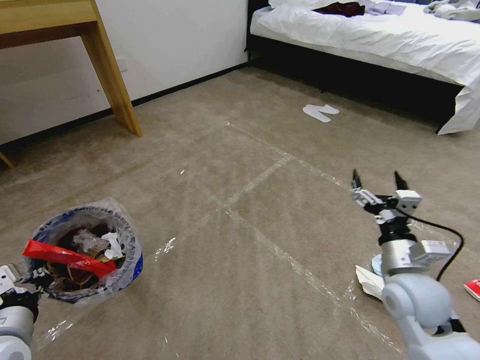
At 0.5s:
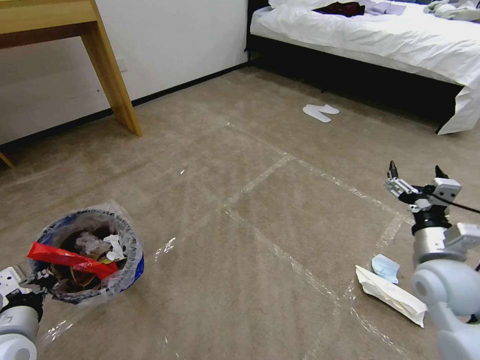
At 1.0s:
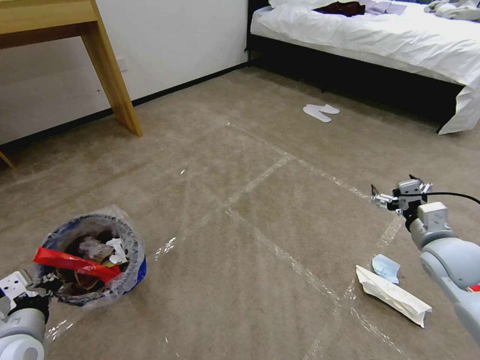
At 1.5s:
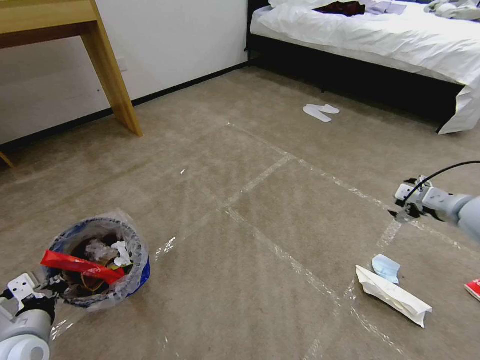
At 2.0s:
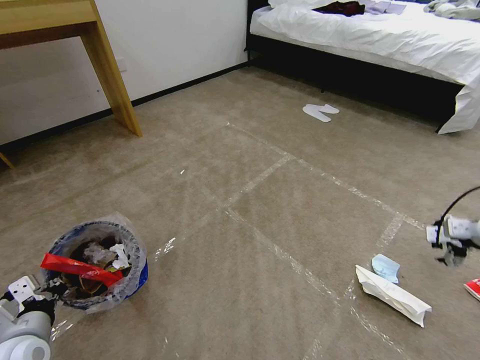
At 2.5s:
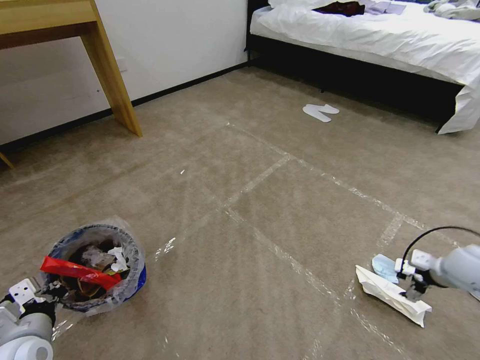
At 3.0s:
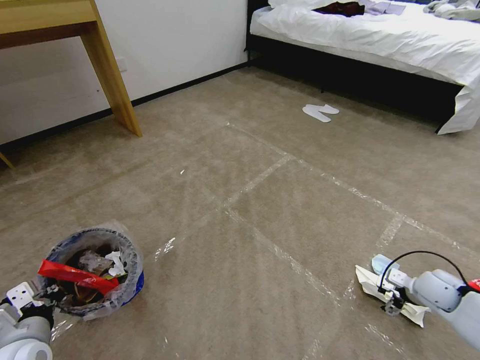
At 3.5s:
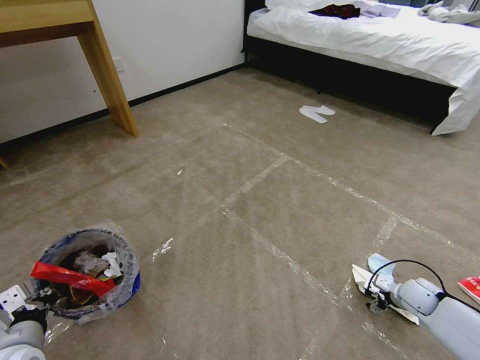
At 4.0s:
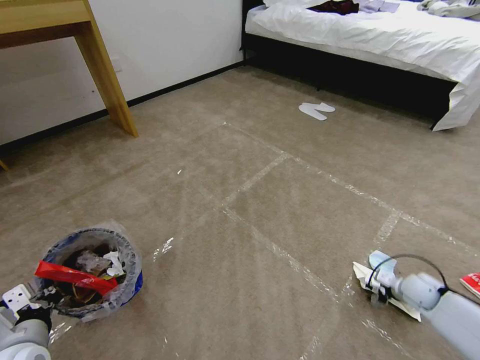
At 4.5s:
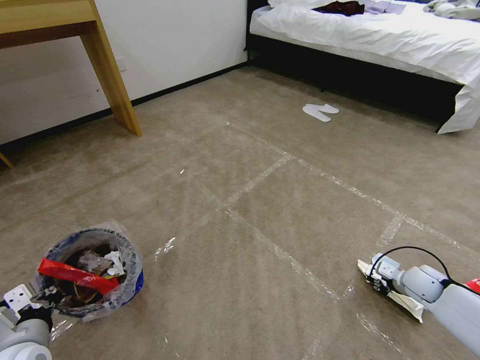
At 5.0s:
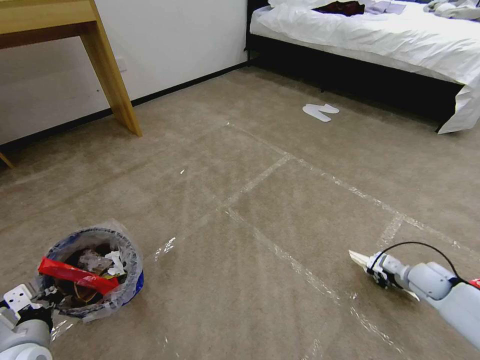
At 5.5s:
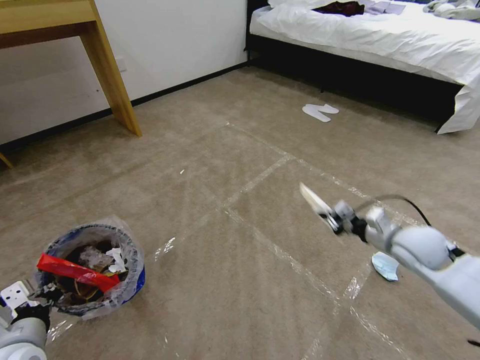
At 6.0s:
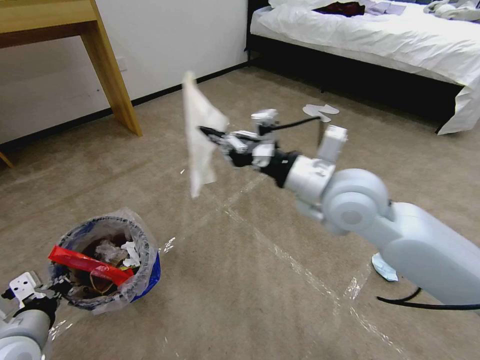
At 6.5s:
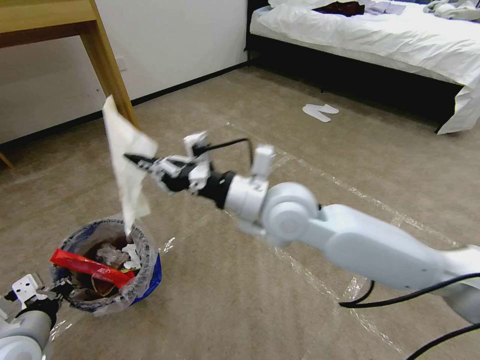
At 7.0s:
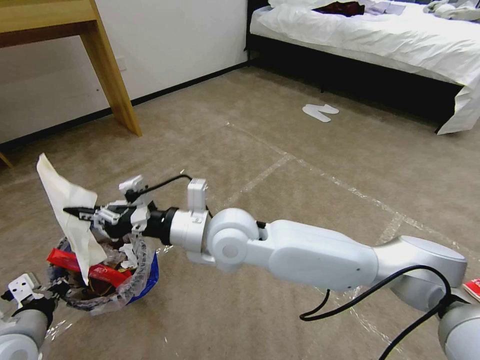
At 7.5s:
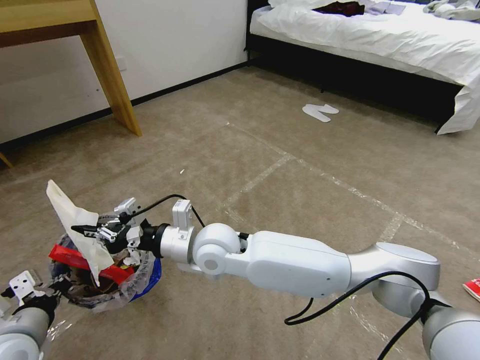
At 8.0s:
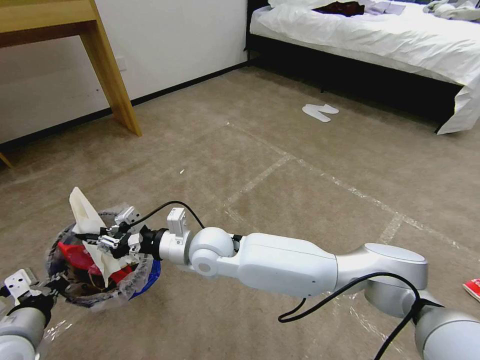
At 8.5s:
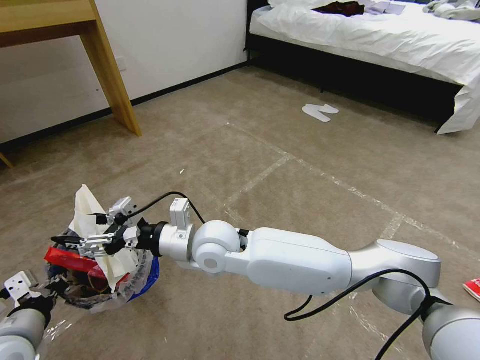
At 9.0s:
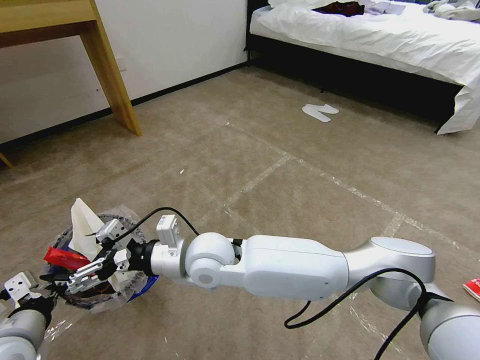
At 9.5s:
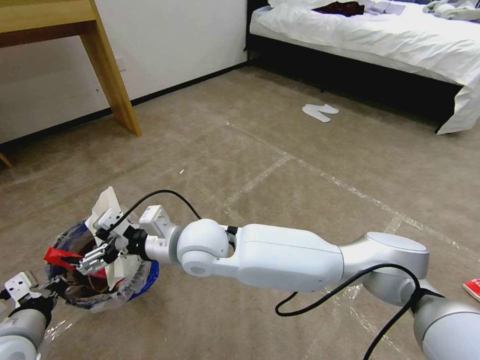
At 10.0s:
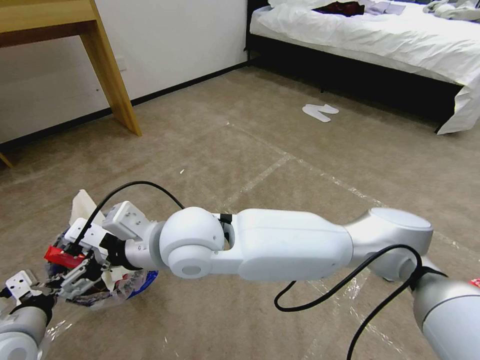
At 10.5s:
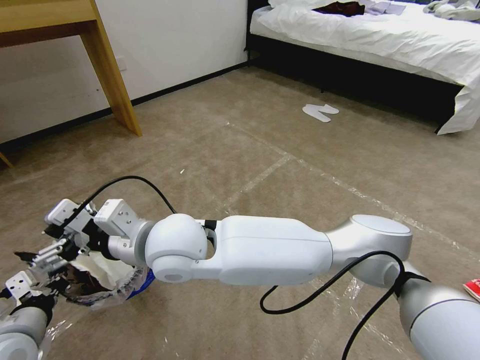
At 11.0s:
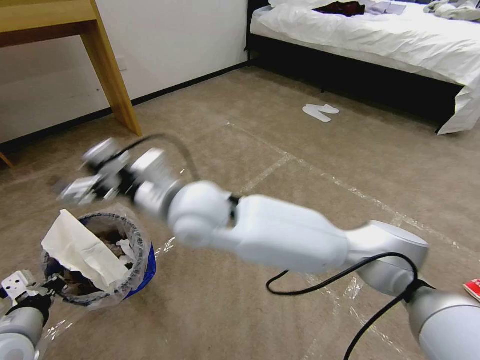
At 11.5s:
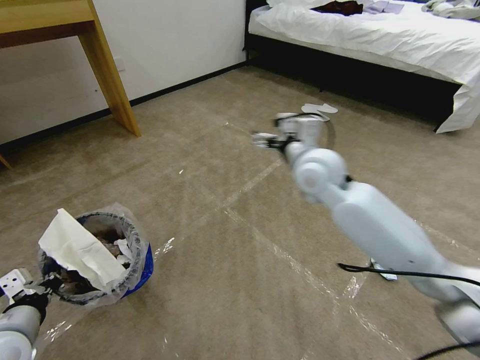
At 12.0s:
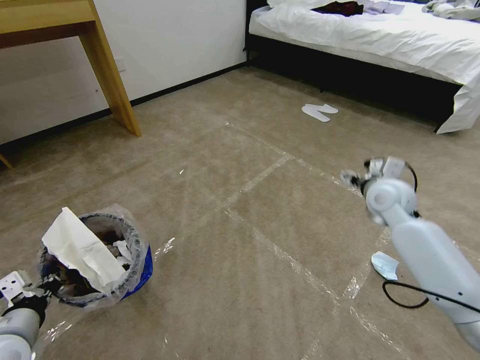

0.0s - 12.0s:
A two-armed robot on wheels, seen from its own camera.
Task of the whole recording: Pick up the trash bin and place the garbage on the floor into it.
0.0s - 2.0s: The right gripper goes approximately 25 cm to the right and forward. The left gripper heads downward, covering some 5 cm.
2.0s - 4.0s: The right gripper travels downward by roughly 25 cm.
4.0s - 6.0s: The left gripper is displaced upward by approximately 5 cm. The right gripper travels upward and to the left by some 50 cm, and closes its fingers.
6.0s - 8.0s: The right gripper is displaced to the left and downward by some 30 cm.
8.0s - 10.0s: The right gripper goes about 15 cm upward and backward, and opens its fingers.
10.0s - 12.0s: The right gripper shifts approximately 40 cm to the right.

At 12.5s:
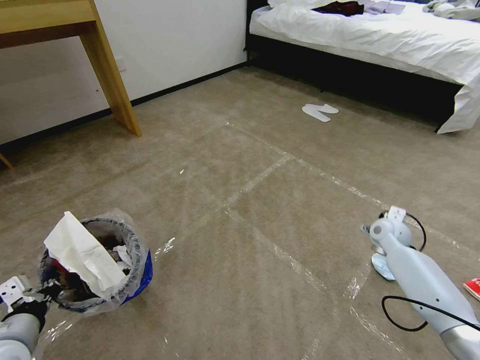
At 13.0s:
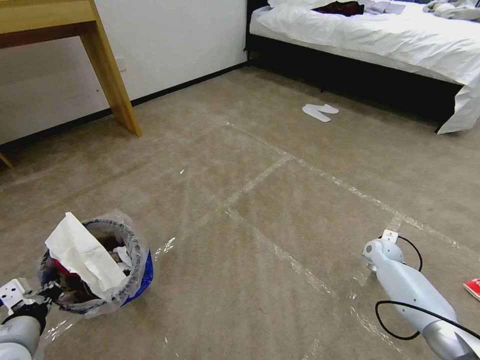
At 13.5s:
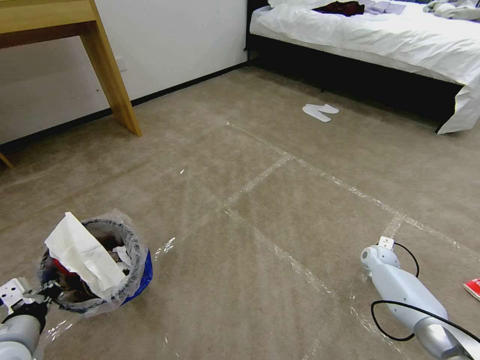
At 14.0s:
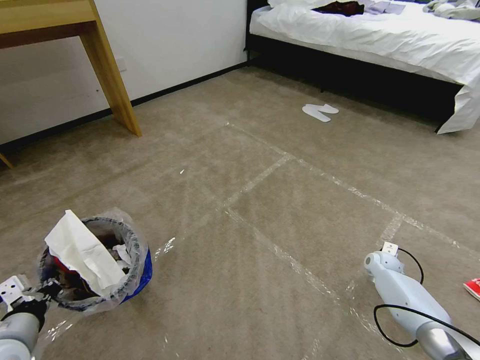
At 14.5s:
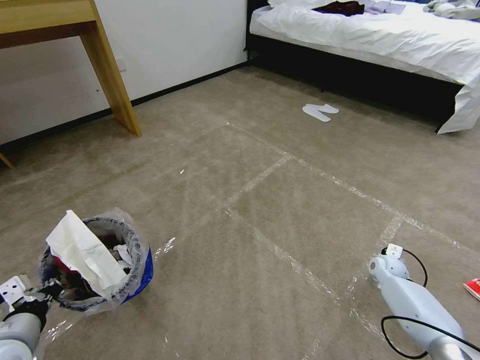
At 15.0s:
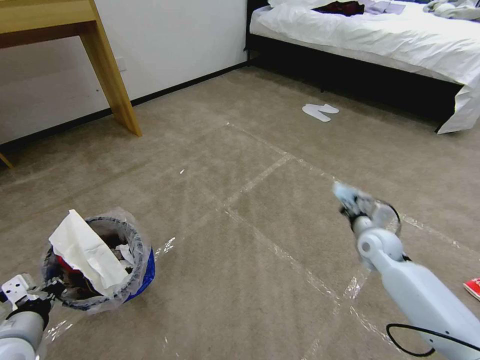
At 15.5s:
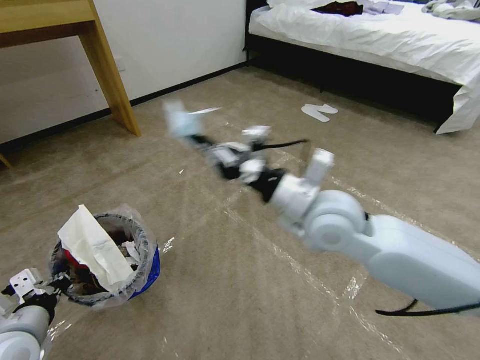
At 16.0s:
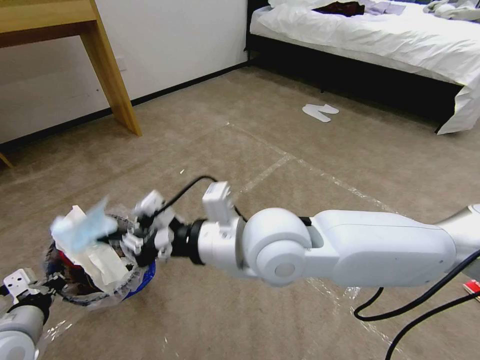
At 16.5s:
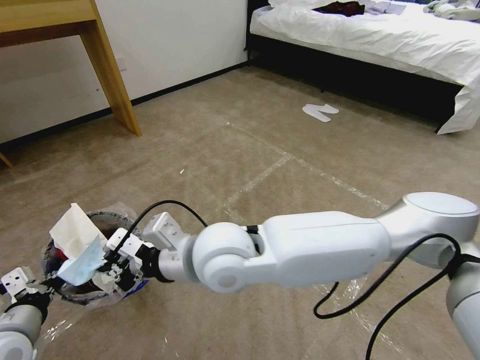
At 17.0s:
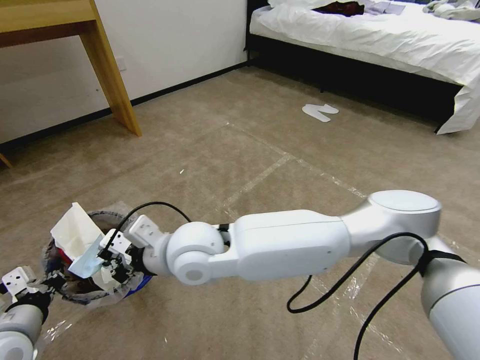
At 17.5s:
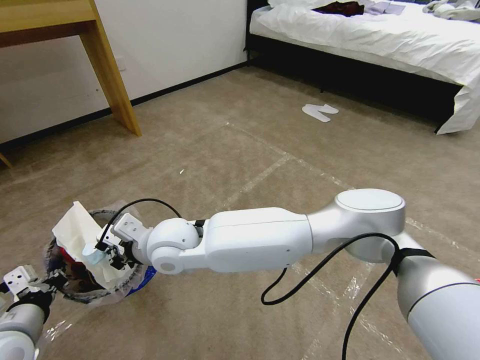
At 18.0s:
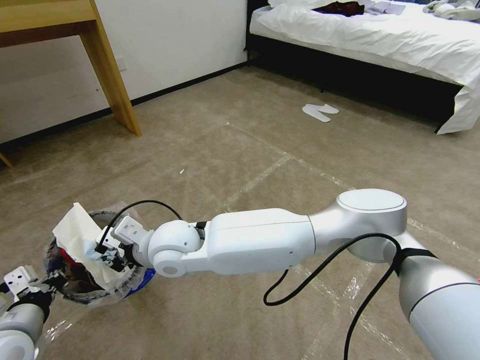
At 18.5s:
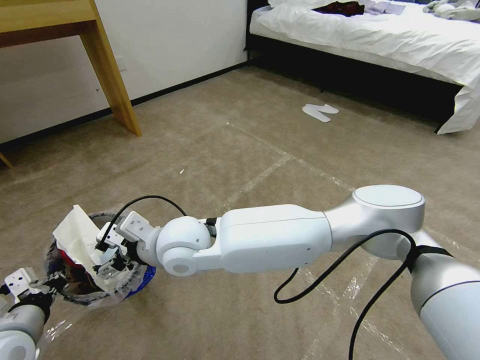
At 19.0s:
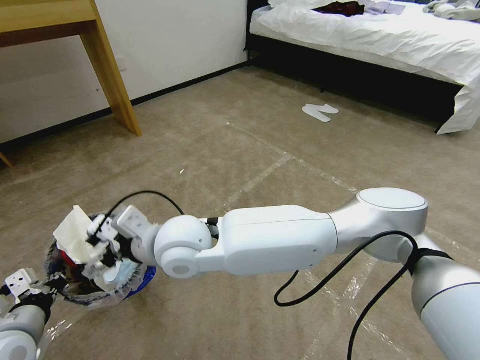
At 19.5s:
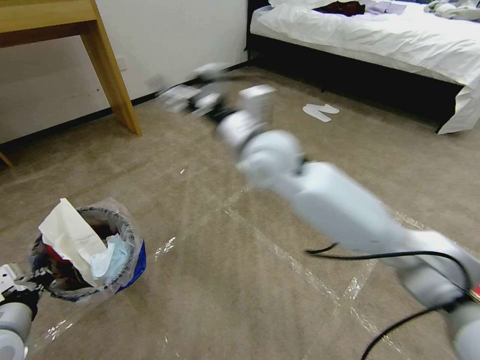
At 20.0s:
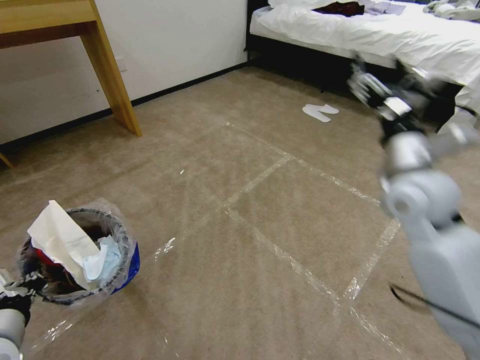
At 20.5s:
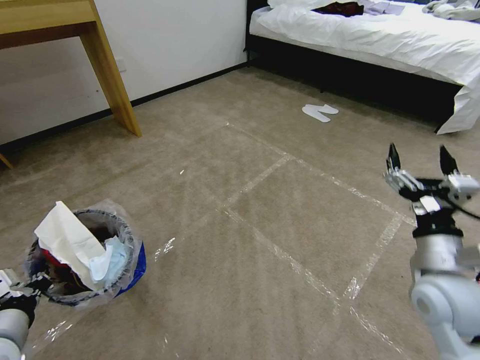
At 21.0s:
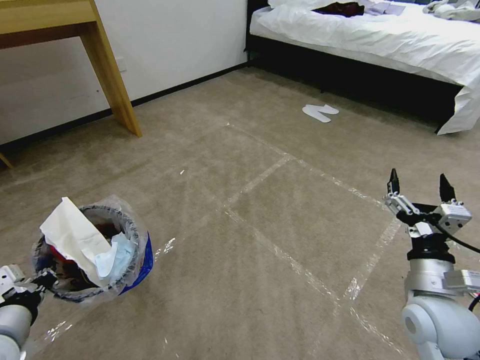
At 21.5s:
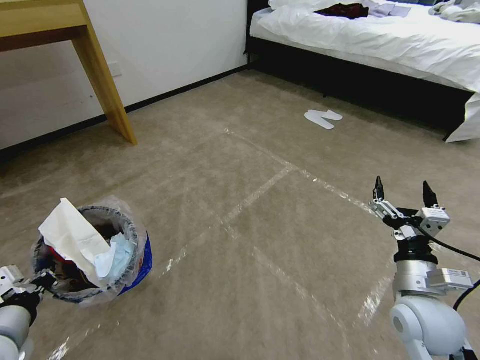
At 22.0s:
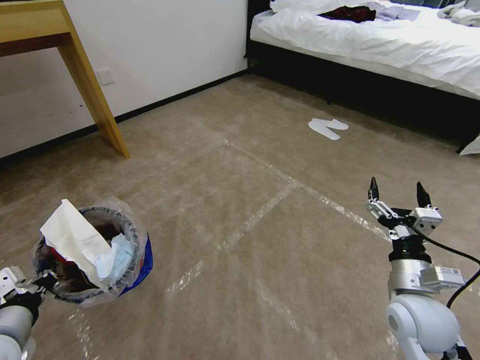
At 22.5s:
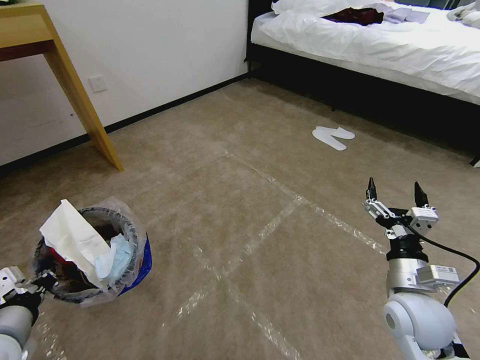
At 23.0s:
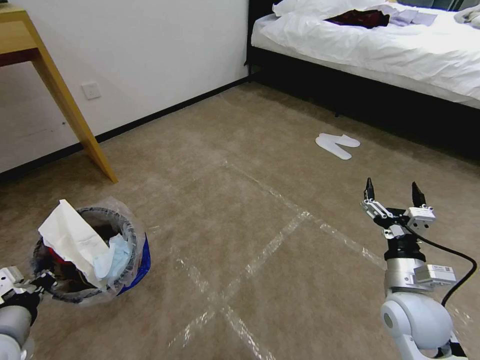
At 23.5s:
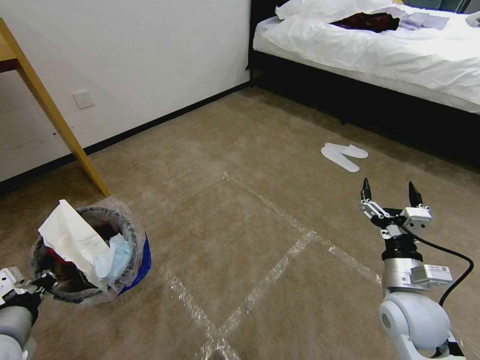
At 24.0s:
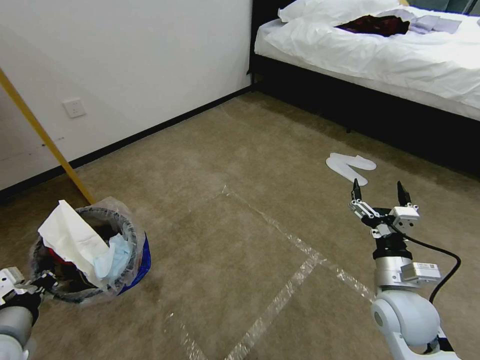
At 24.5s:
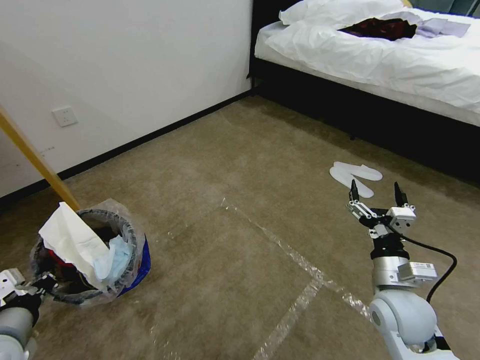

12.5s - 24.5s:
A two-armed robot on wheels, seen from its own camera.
Task of the whole recording: Pick up the trash bin and place the garbage on the floor into it.
12.5s - 14.5s: The right gripper heads downward, covering approximately 10 cm, and closes its fingers.
14.5s - 16.5s: The right gripper travels to the left and upward by some 60 cm.
16.5s - 18.5s: The right gripper shifts approximately 10 cm to the left, and opens up.
18.5s - 20.5s: The right gripper shifts about 40 cm to the right.
20.5s - 22.5s: The right gripper goes some 5 cm downward.

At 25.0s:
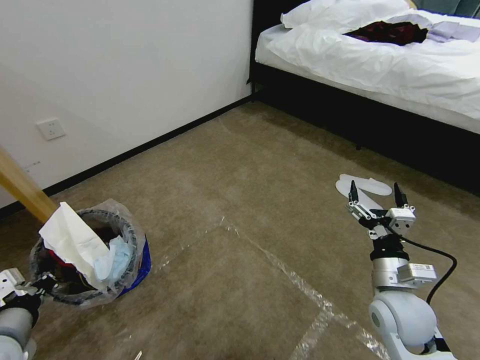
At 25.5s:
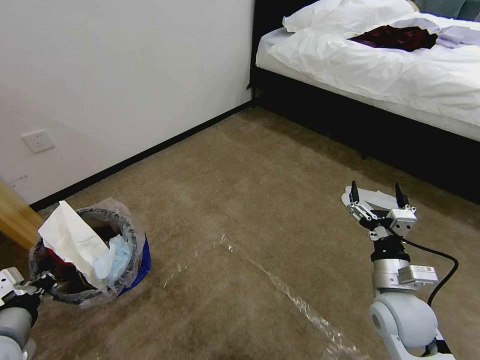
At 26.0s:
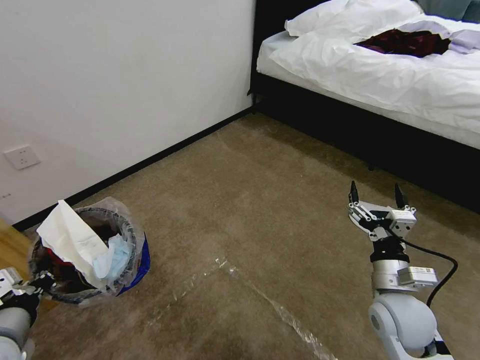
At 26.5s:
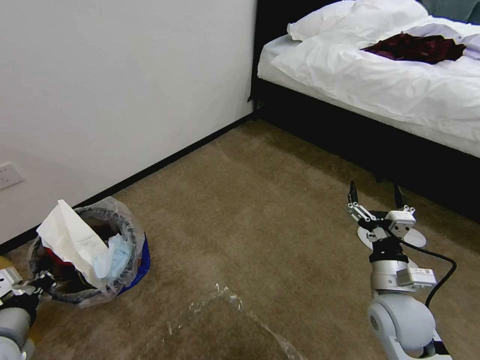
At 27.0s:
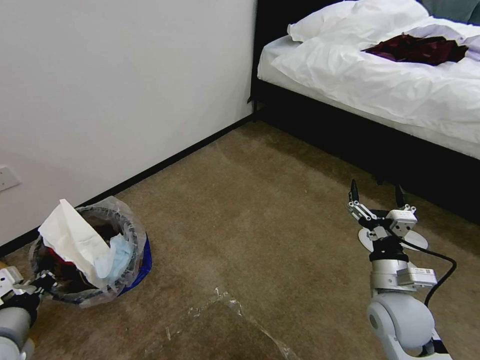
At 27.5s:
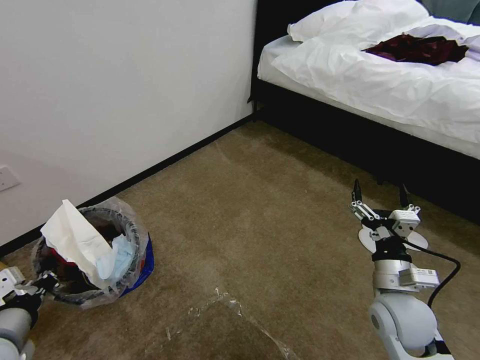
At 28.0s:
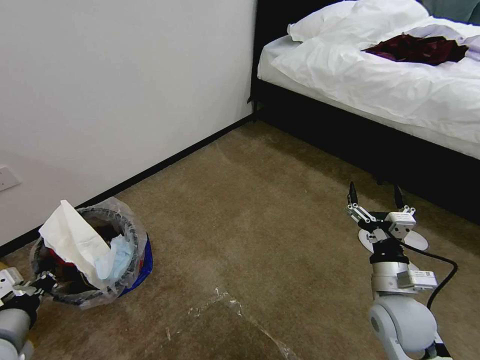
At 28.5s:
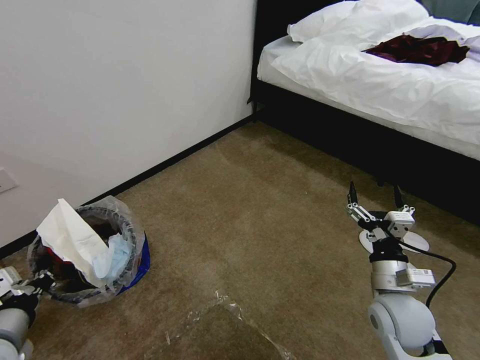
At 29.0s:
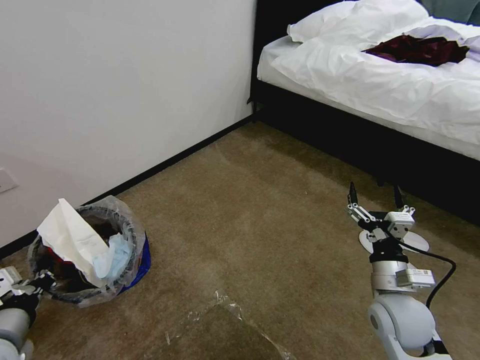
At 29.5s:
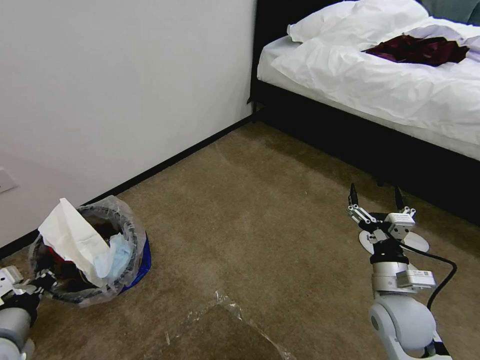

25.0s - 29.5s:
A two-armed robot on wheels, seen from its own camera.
Task of the whole recording: Pick up the trash bin and place the garbage on the floor into it.
27.0s - 29.5s: Both grippers stay put.
